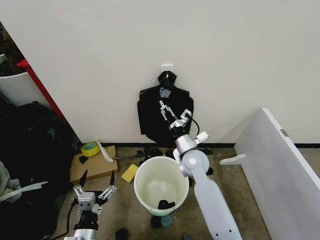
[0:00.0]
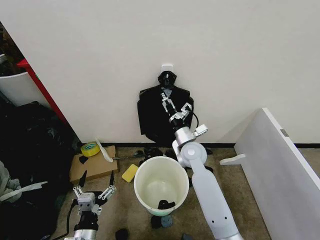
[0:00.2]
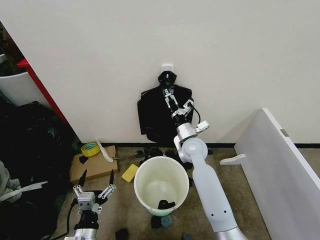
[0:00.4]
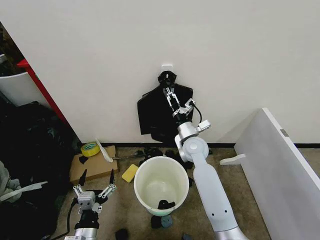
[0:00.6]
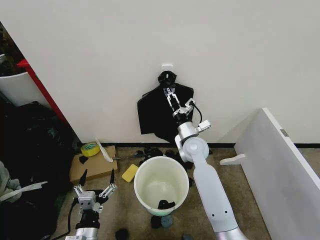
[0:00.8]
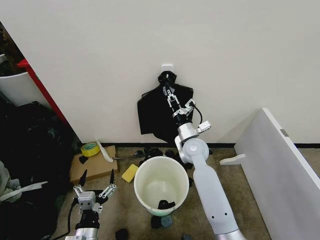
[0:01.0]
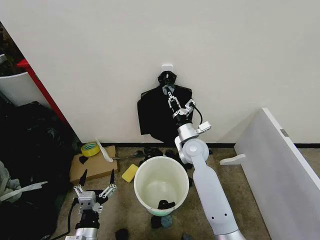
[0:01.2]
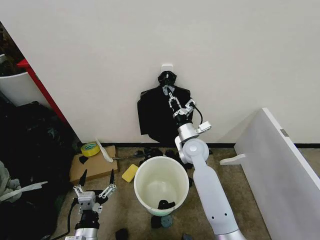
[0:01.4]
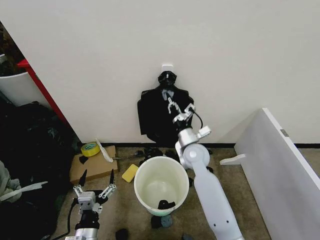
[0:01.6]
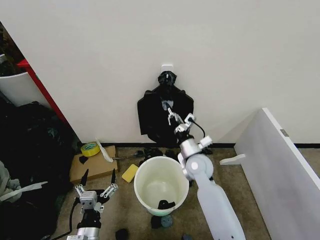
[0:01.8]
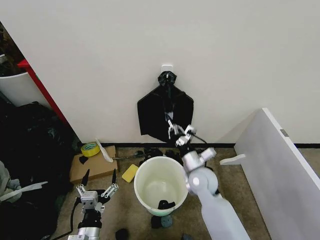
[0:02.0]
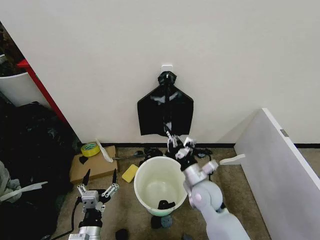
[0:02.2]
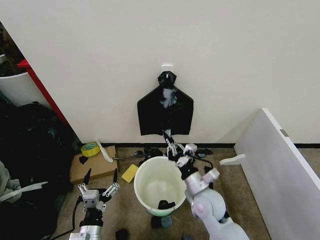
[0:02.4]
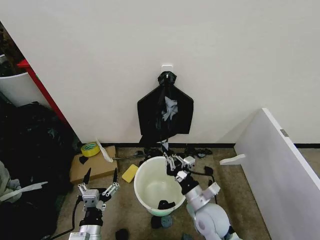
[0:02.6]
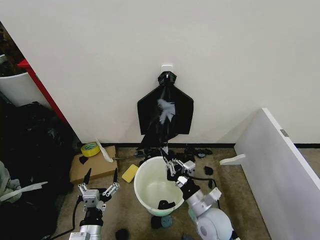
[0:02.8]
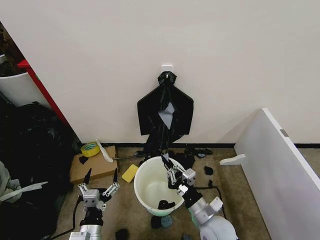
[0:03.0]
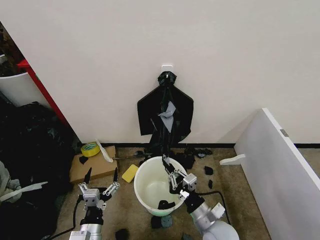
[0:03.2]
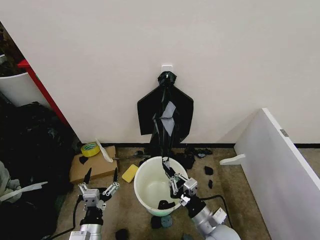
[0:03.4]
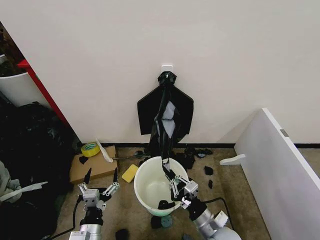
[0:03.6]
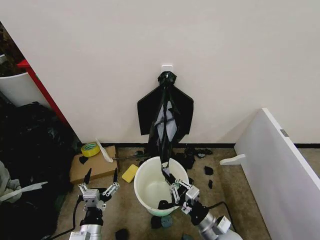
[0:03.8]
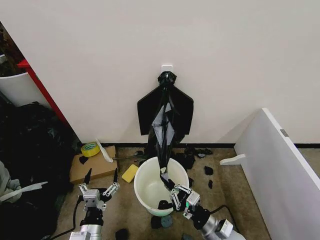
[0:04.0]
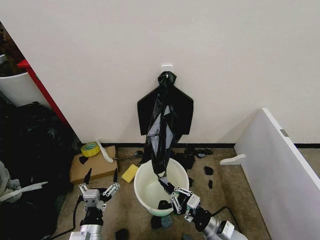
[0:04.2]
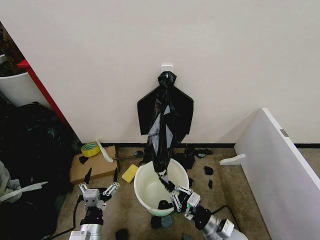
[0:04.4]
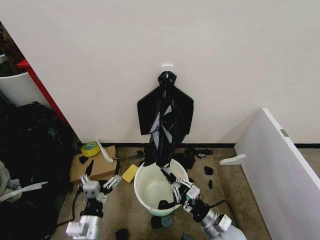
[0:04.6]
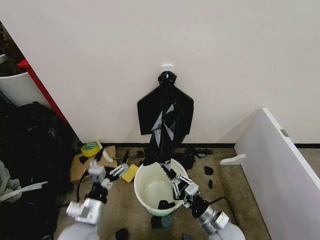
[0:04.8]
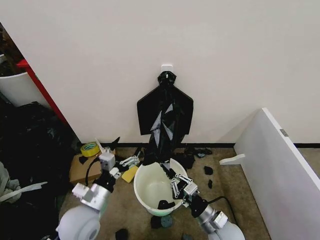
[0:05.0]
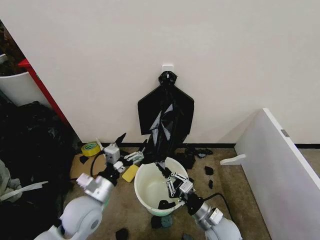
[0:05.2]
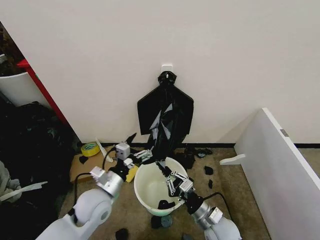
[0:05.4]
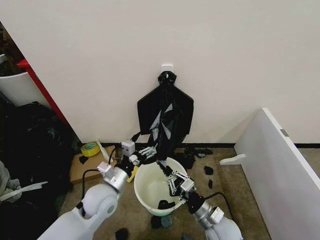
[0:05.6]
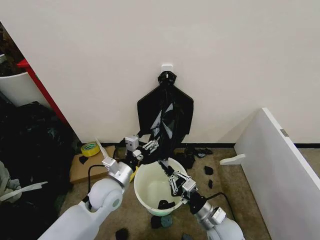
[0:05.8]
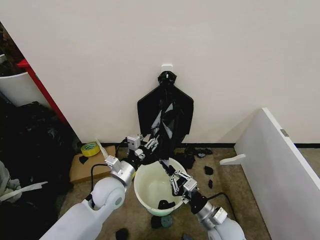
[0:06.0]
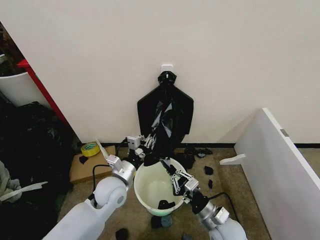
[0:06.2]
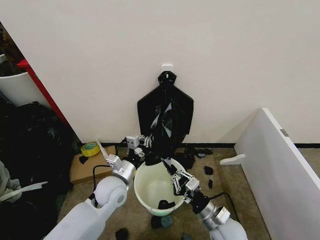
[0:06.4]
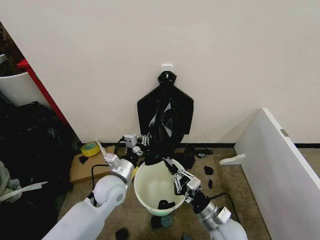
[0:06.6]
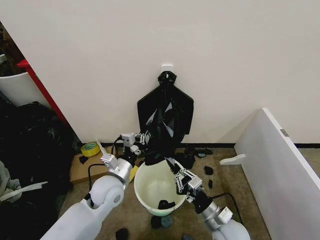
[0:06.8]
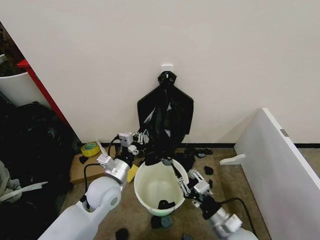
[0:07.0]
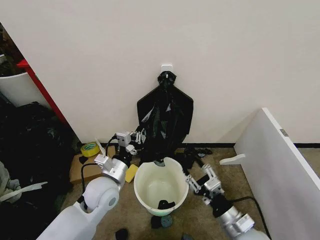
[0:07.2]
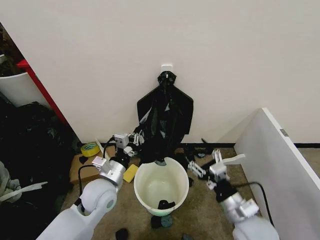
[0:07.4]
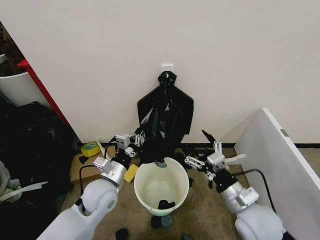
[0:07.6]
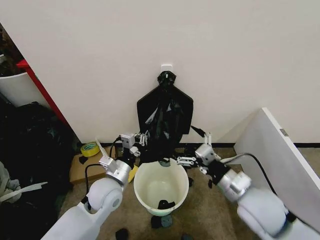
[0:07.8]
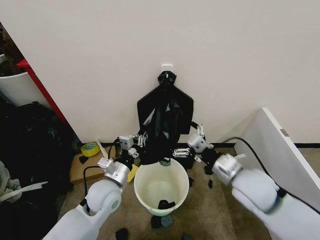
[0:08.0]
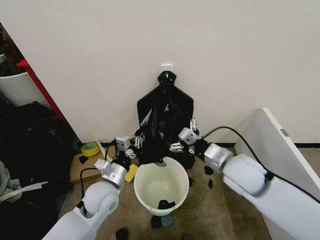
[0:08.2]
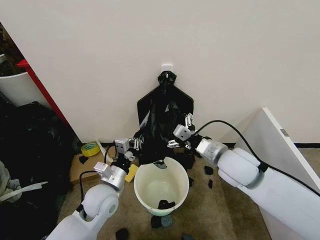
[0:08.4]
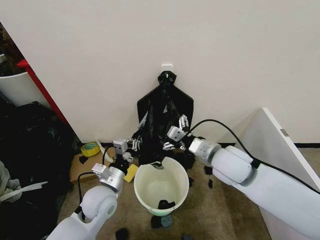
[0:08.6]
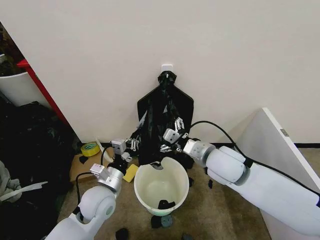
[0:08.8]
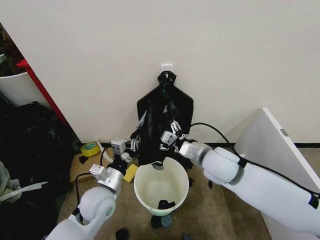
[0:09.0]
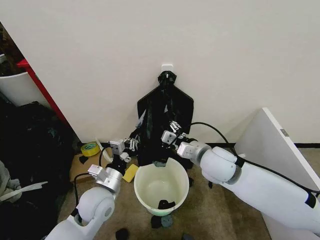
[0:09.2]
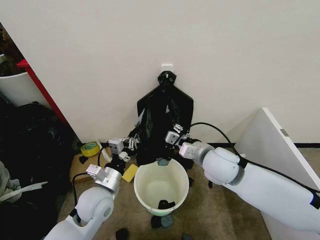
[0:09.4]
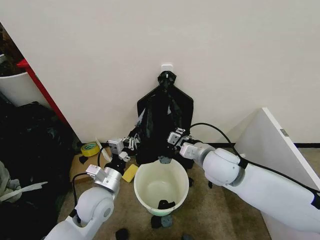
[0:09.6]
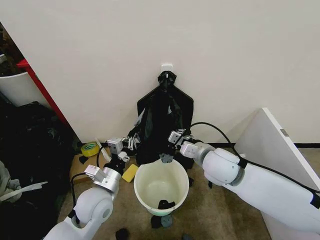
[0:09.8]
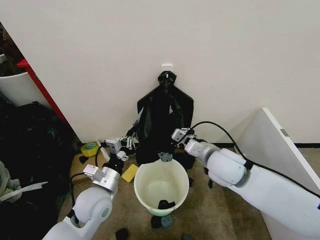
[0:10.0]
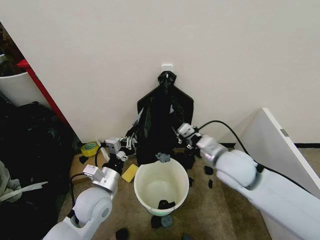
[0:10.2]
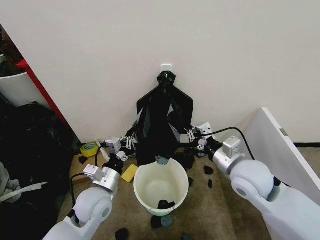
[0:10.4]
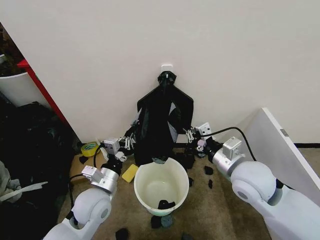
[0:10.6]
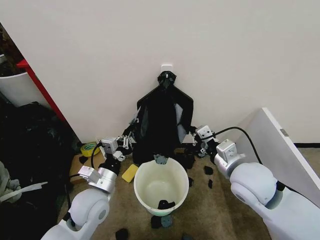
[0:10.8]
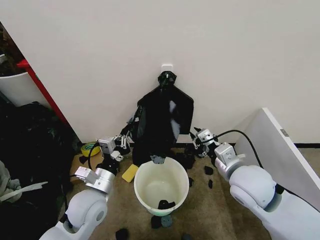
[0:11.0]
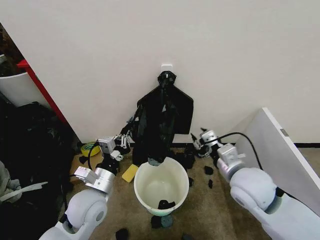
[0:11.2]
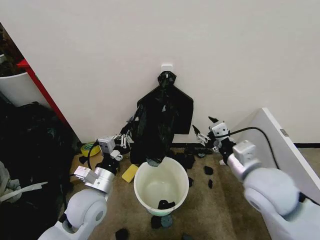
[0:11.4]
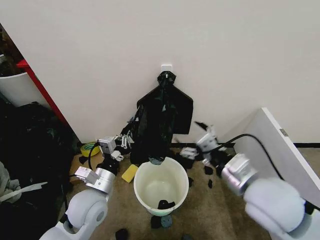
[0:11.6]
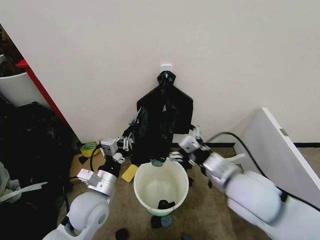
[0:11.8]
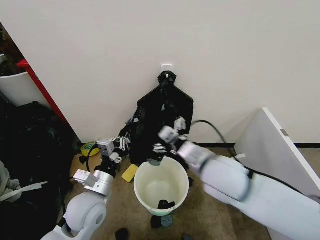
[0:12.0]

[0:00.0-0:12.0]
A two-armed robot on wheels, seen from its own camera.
Task of the whole recording: Place the garbage bag over the trash bin.
0:00.0 to 0:01.6: The right gripper closes.
0:01.6 to 0:03.0: The right gripper shifts some 20 cm backward.
0:03.0 to 0:04.4: The right gripper moves roughly 5 cm.
0:04.4 to 0:06.0: The left gripper is displaced forward and upward by some 20 cm, and closes its fingers.
0:06.0 to 0:07.6: The left gripper closes its fingers. Meanwhile the right gripper heads upward, covering approximately 10 cm, and opens its fingers.
0:07.6 to 0:09.0: The right gripper is displaced forward, to the left and upward by about 15 cm.
0:09.0 to 0:10.4: The right gripper goes approximately 5 cm to the right, and closes its fingers.
0:10.4 to 0:12.0: The right gripper shifts about 10 cm to the left, and opens.

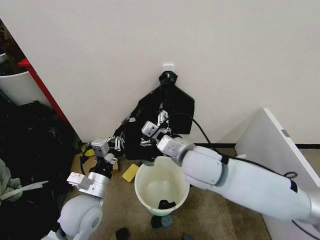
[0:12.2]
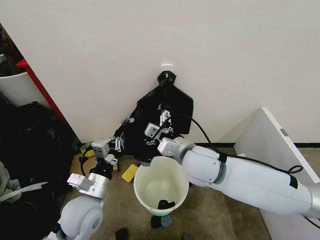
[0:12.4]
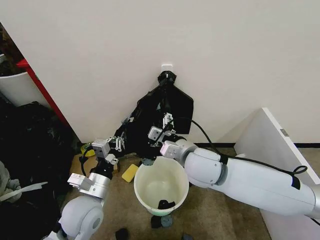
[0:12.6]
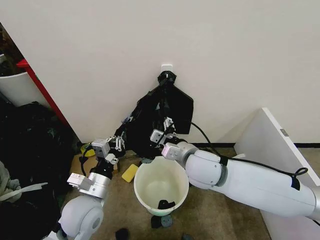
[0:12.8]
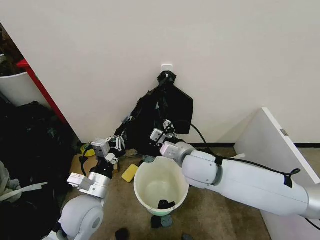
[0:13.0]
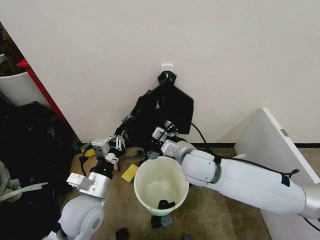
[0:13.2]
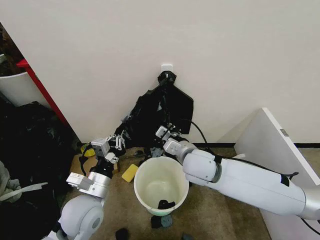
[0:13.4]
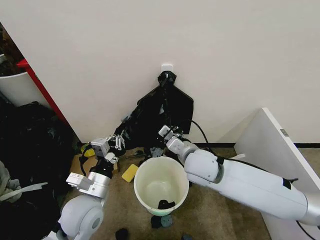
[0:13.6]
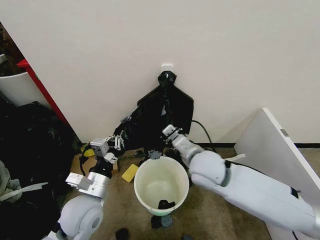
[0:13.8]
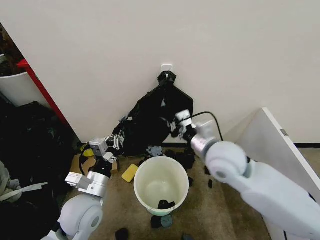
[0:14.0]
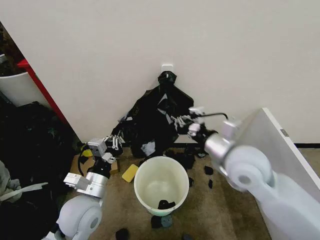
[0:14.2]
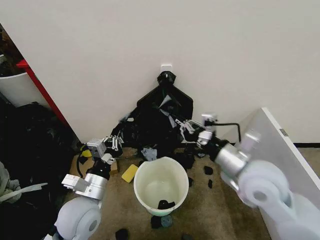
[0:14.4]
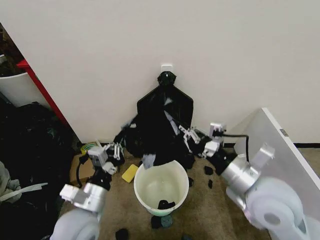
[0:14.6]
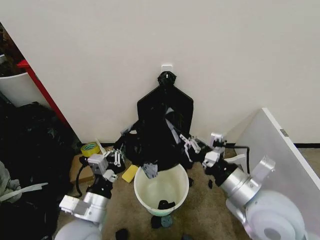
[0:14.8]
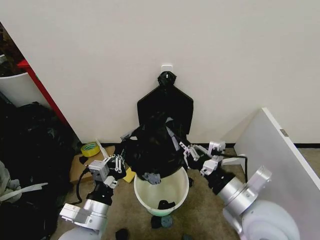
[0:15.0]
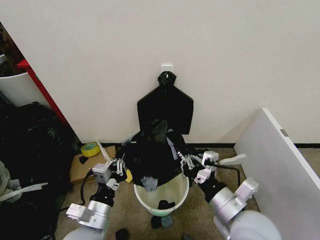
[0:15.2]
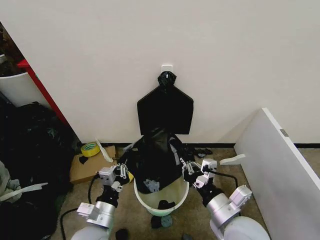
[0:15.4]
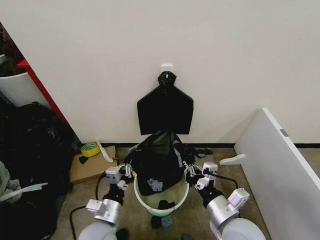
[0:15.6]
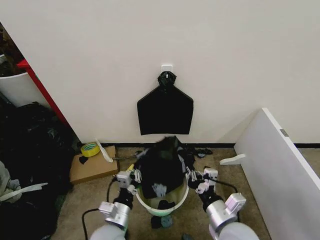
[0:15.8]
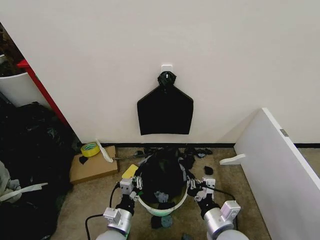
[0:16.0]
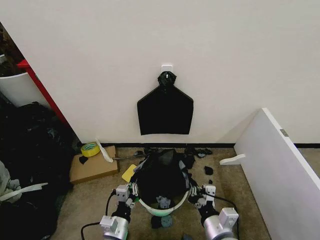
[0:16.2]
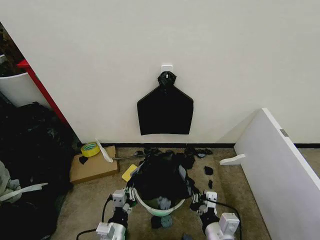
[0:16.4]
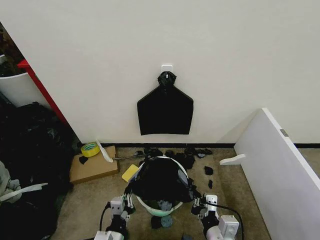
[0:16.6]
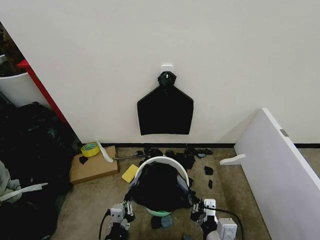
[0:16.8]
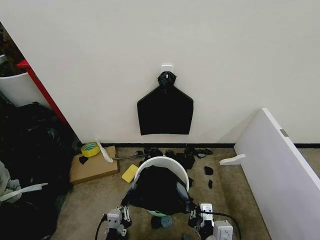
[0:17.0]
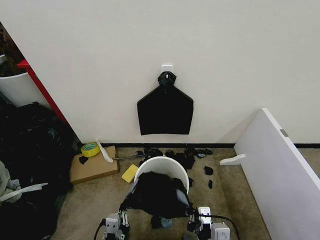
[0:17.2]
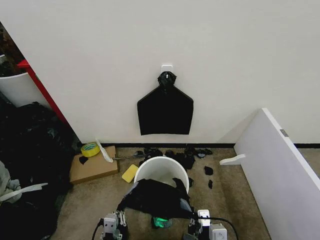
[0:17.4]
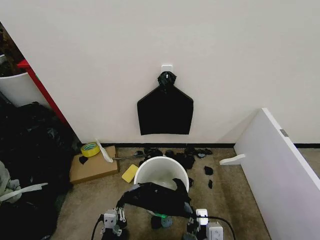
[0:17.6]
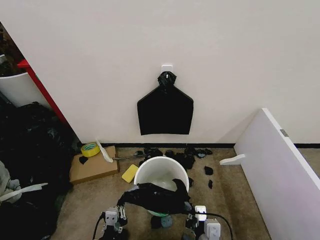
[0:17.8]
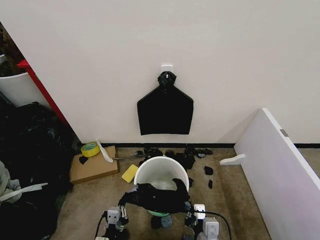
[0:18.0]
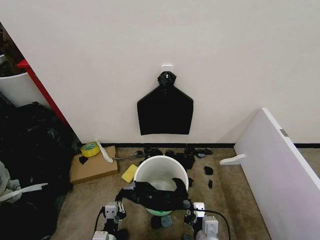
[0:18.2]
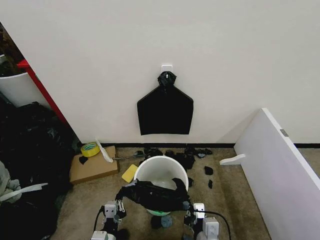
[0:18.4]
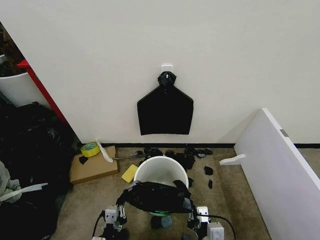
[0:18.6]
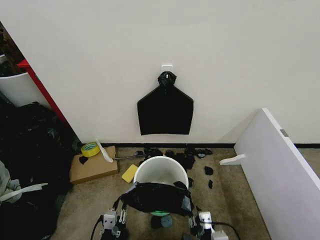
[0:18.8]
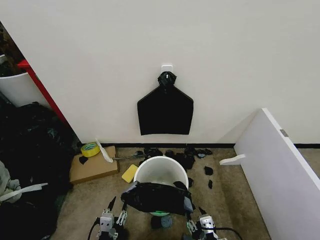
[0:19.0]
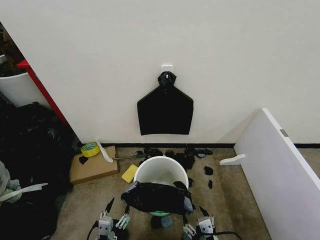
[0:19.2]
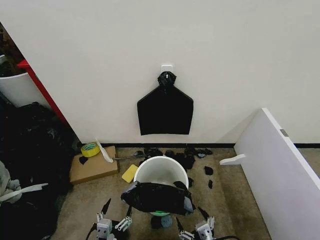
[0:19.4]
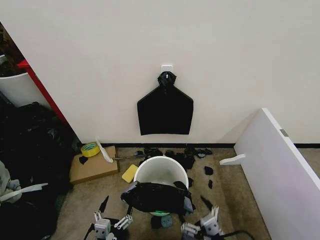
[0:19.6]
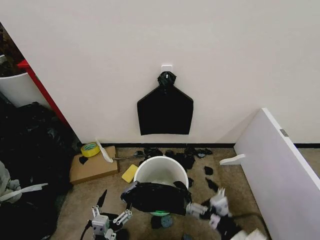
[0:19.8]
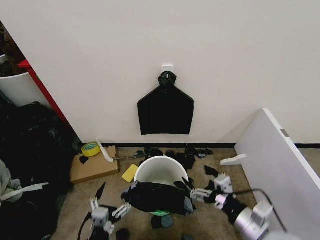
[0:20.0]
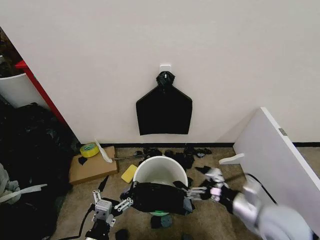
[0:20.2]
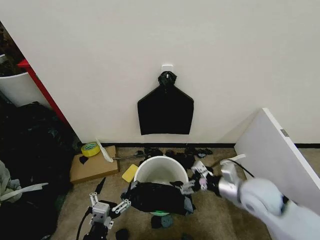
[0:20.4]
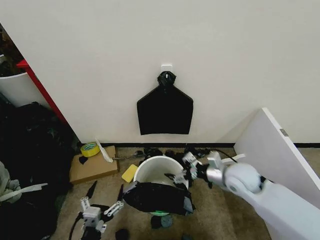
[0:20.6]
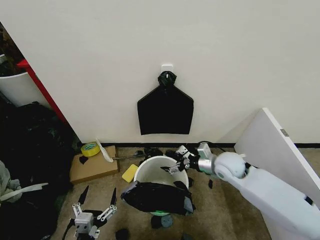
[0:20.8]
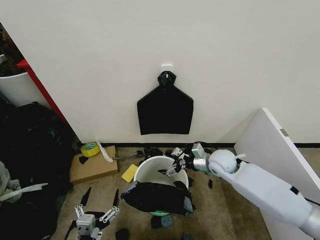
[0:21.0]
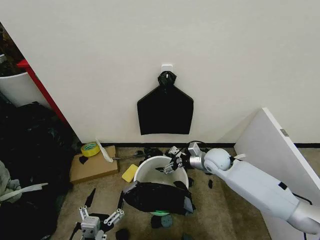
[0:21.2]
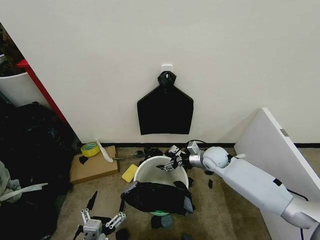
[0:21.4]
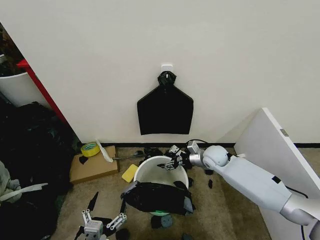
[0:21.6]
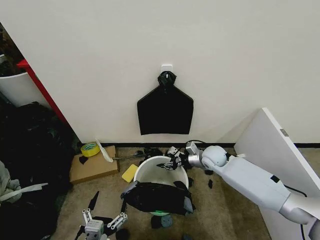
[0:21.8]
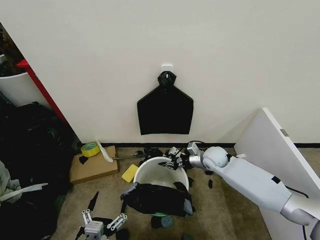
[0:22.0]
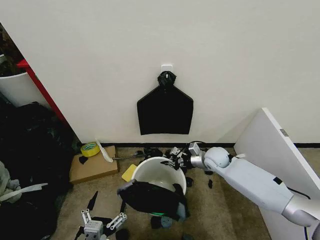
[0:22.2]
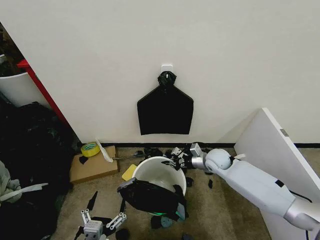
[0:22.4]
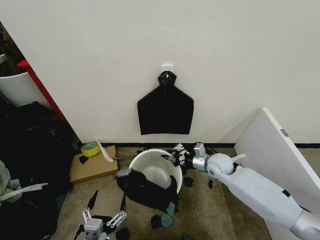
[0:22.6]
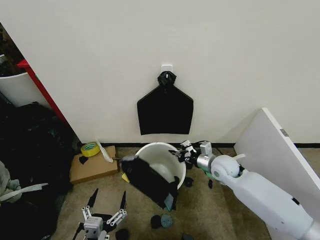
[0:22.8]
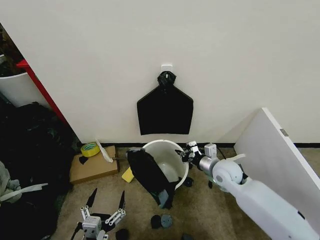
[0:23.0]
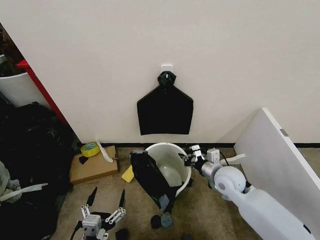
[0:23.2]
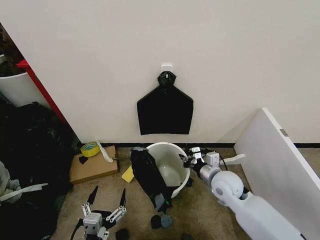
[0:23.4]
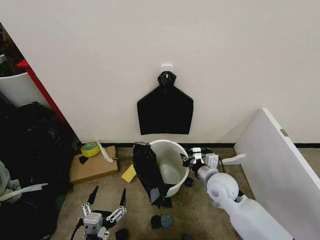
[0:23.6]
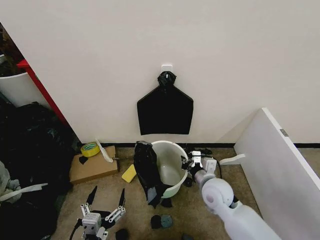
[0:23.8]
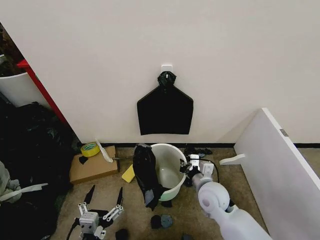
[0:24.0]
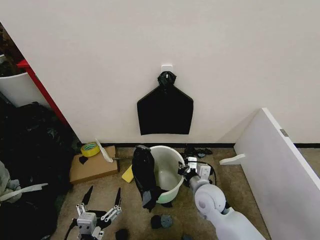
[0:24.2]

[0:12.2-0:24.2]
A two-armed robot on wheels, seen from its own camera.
Task of the whole recording: Place the garbage bag over the trash bin.
0:12.2 to 0:13.8: The right gripper changes place by approximately 5 cm, and closes.
0:13.8 to 0:15.2: The left gripper heads backward, covering approximately 5 cm, while the right gripper goes roughly 15 cm backward and to the right.
0:15.2 to 0:16.6: The right gripper moves downward and backward, about 10 cm, while the left gripper shifts approximately 15 cm downward.
0:16.6 to 0:18.2: The right gripper shifts approximately 5 cm downward.
0:18.2 to 0:19.8: The right gripper moves to the right and upward, approximately 10 cm, and opens up. The left gripper moves backward and upward, some 10 cm, and opens.
0:19.8 to 0:21.2: The right gripper moves forward, roughly 35 cm.
0:21.2 to 0:22.6: The right gripper closes its fingers.
0:22.6 to 0:24.2: The right gripper goes roughly 15 cm backward and to the left.
